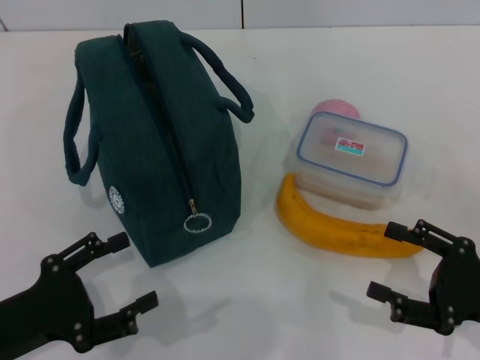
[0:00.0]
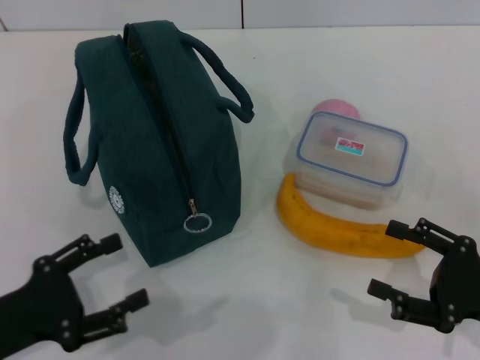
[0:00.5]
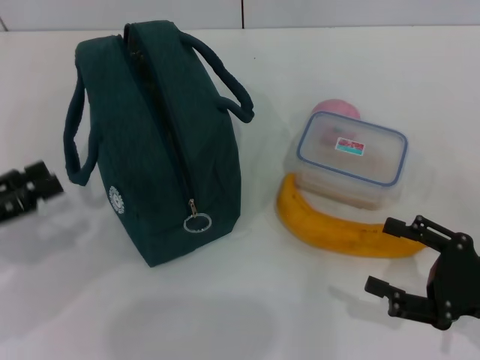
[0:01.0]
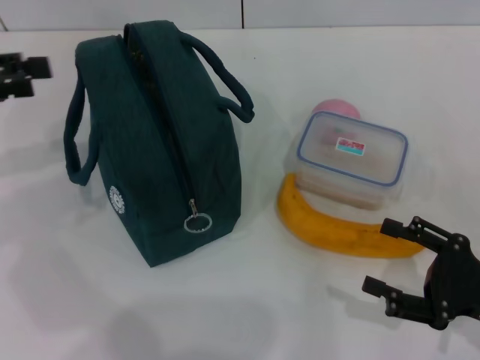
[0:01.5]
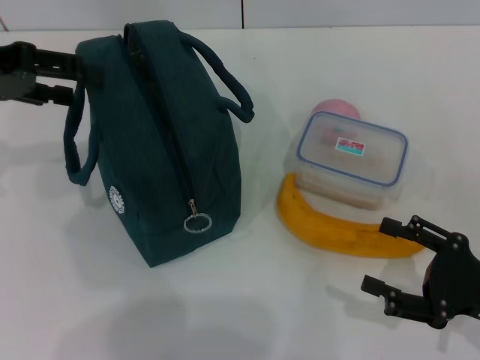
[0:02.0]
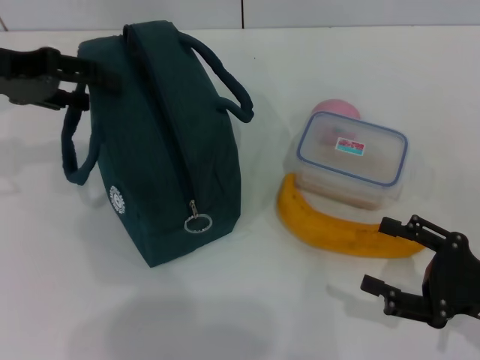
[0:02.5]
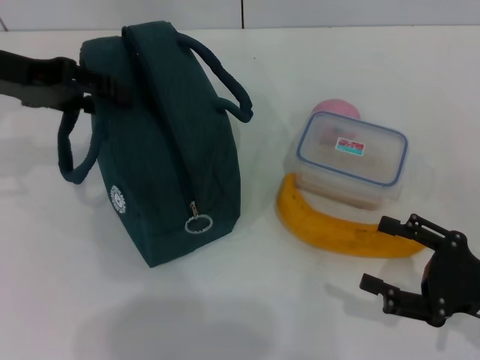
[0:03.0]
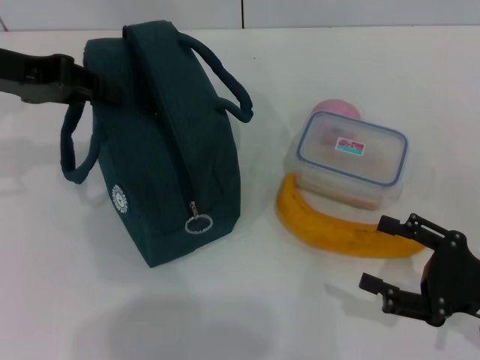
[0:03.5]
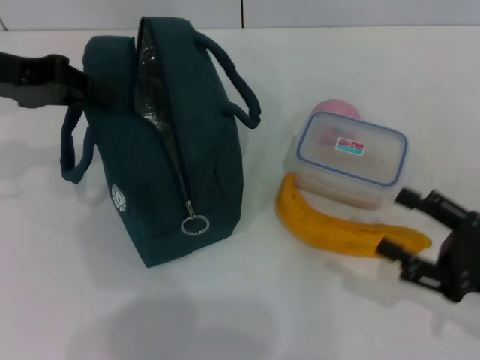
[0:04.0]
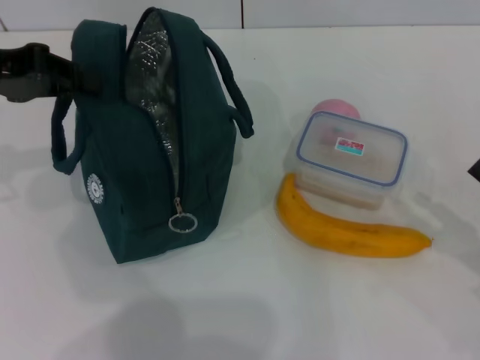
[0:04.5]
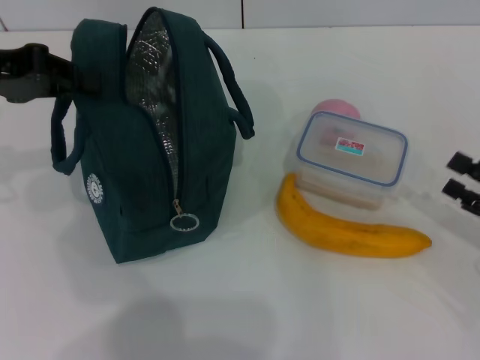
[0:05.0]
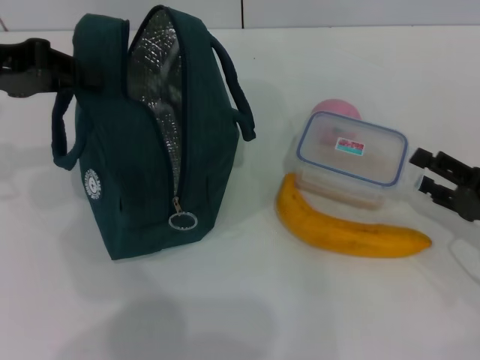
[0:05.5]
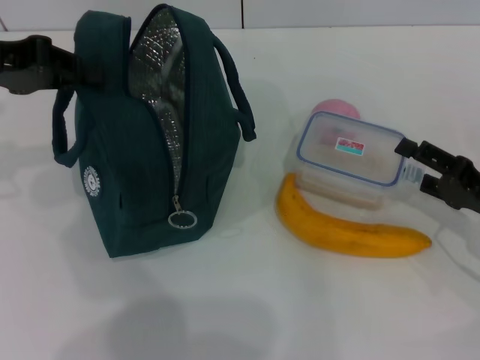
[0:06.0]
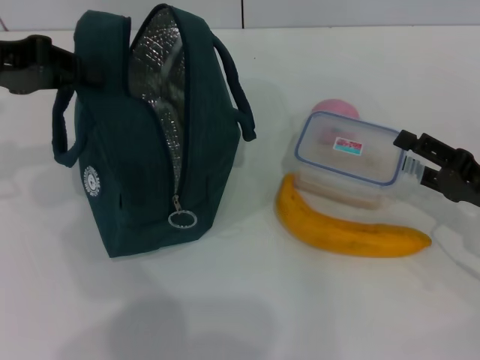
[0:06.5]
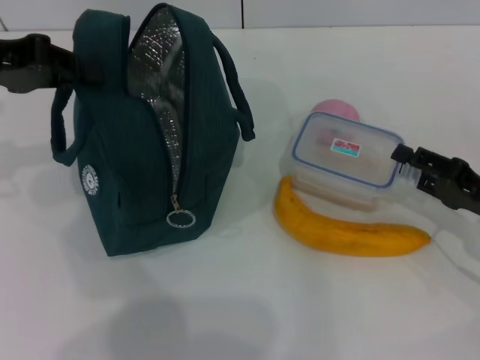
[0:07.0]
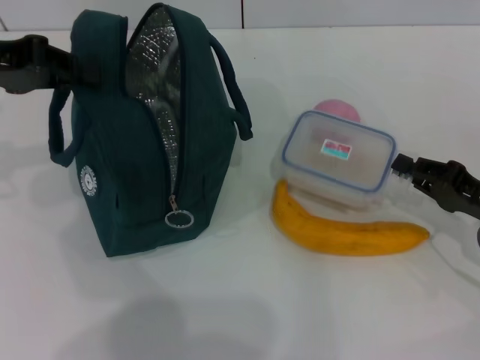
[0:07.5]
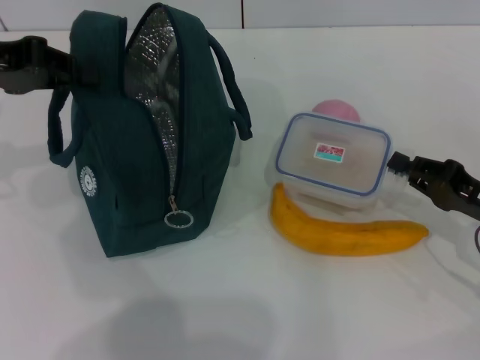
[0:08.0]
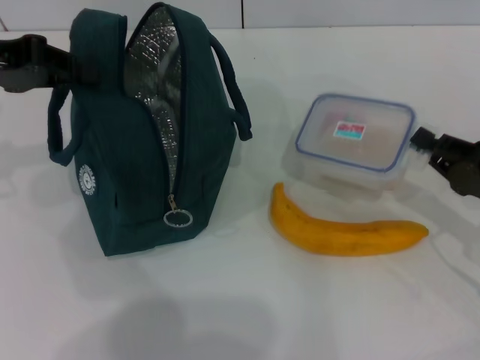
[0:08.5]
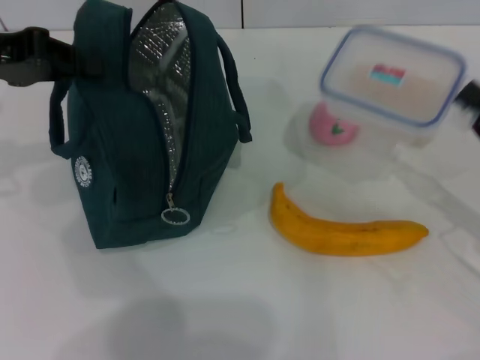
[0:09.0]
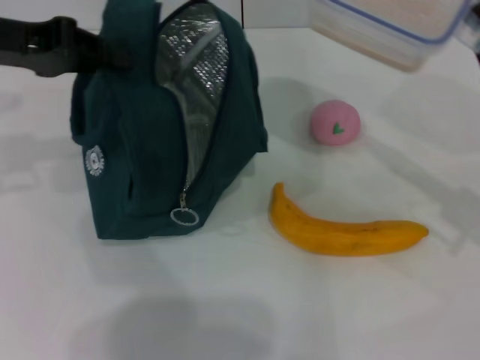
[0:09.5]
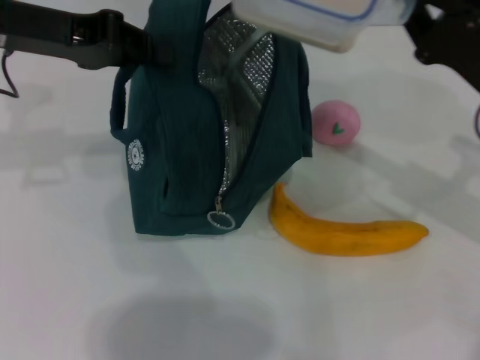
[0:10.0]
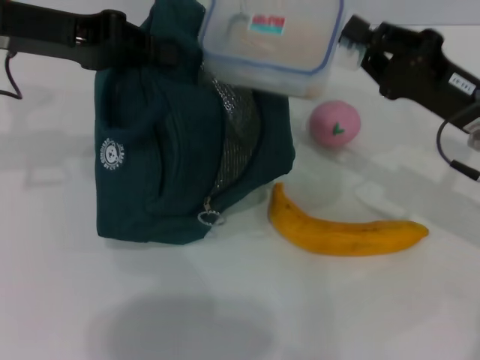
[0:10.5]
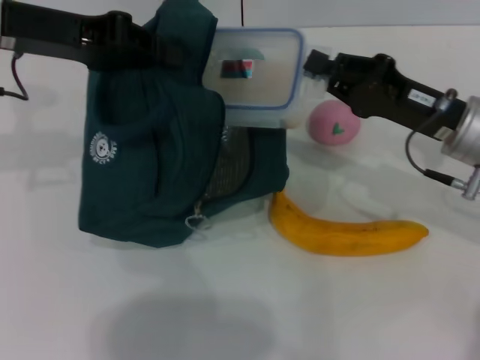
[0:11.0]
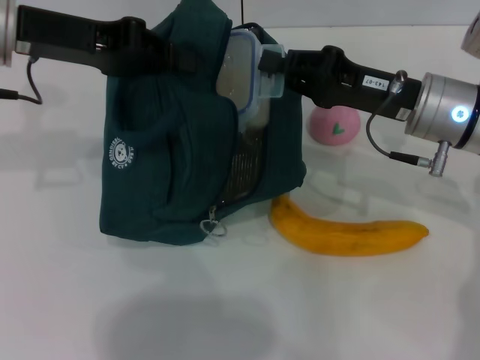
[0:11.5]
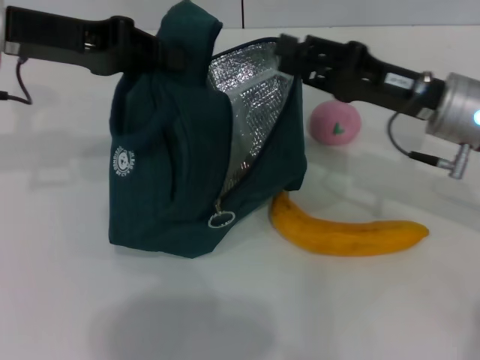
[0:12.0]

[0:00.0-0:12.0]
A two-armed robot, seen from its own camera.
Step, 0:00.0 to 0:04.0: Hold the lunch bag with your left hand.
Step, 0:04.5 to 0:07.5: Pick up the lunch box with your right hand.
Step, 0:08.0 to 0:11.5: Place the lunch box into the lunch bag with your right hand.
0:00.0 to 0:02.0: The left gripper heads forward and upward, covering some 25 cm.
0:02.0 to 0:04.0: The left gripper closes up.
0:04.0 to 0:06.0: The right gripper goes about 10 cm forward.
0:06.0 to 0:08.0: The right gripper closes up.
0:08.0 to 0:10.0: The right gripper moves upward and to the left, about 10 cm. The left gripper shifts about 5 cm to the right.
0:10.0 to 0:12.0: The right gripper moves approximately 5 cm.

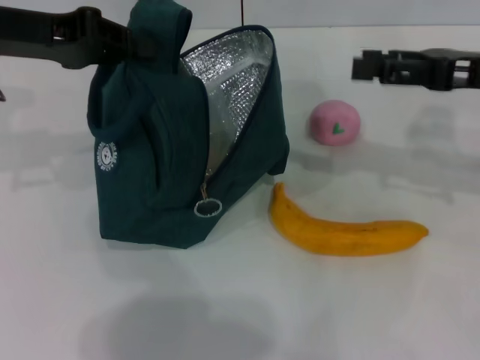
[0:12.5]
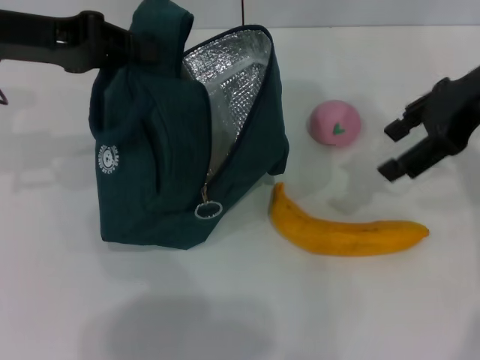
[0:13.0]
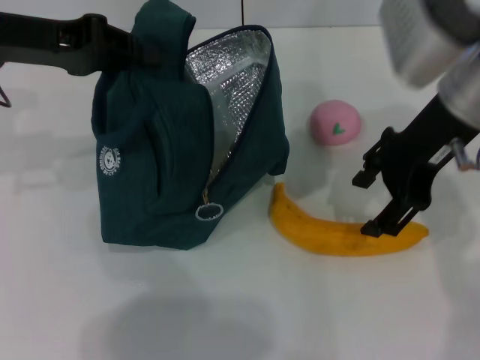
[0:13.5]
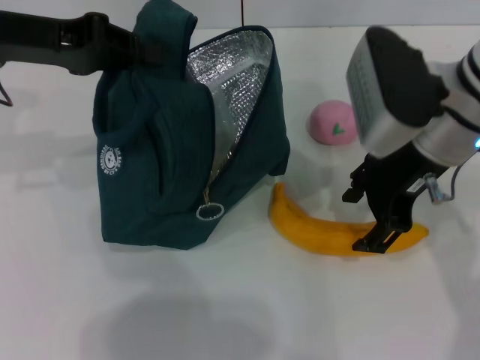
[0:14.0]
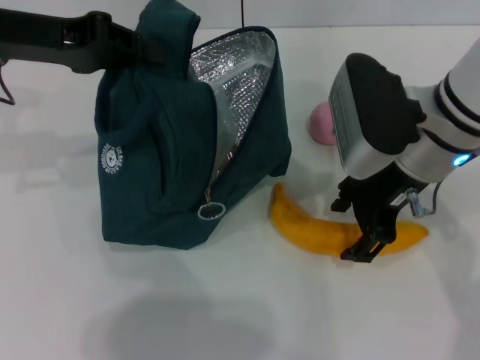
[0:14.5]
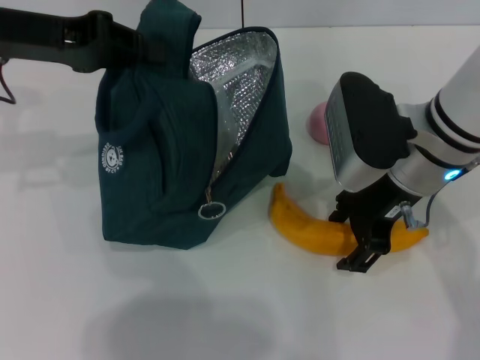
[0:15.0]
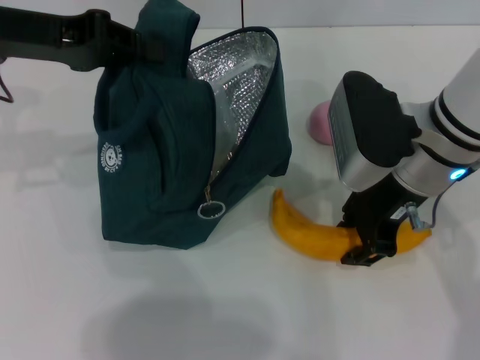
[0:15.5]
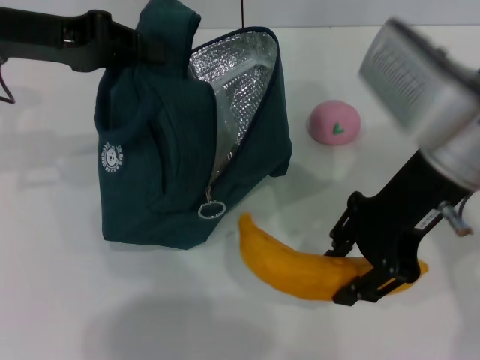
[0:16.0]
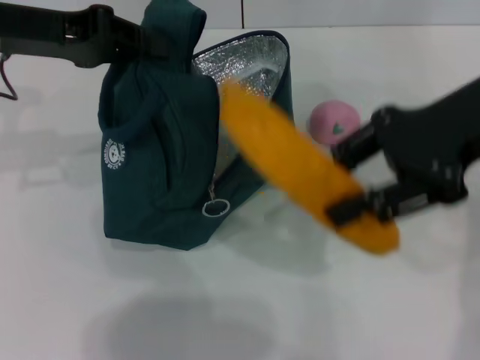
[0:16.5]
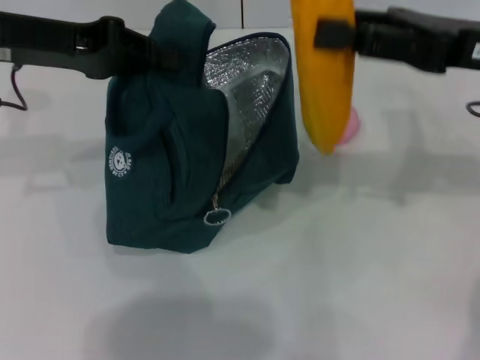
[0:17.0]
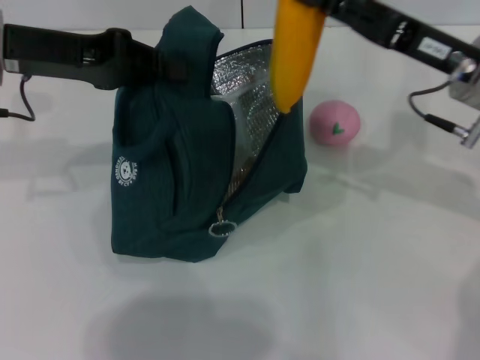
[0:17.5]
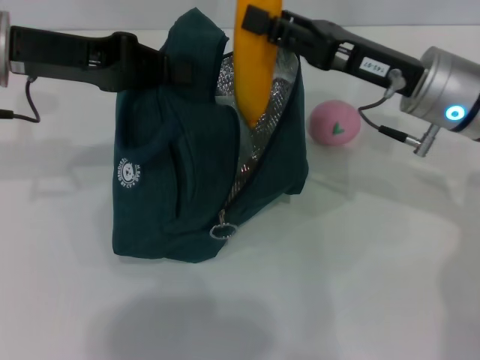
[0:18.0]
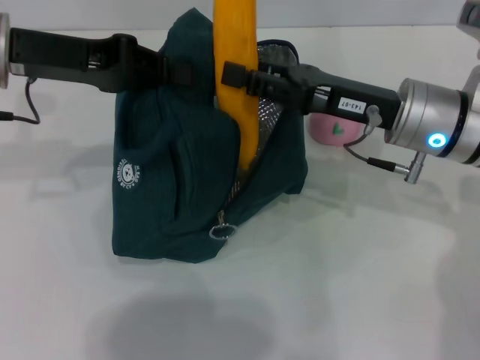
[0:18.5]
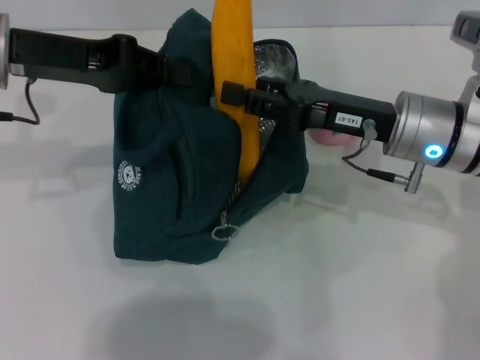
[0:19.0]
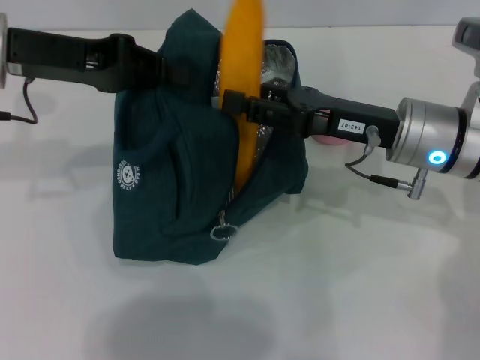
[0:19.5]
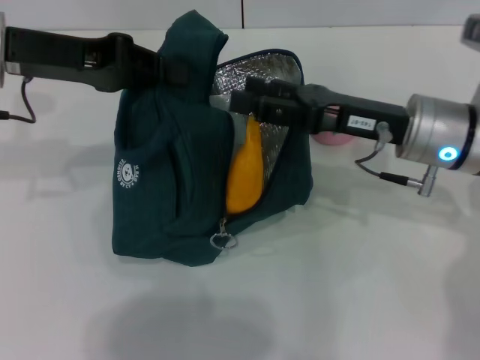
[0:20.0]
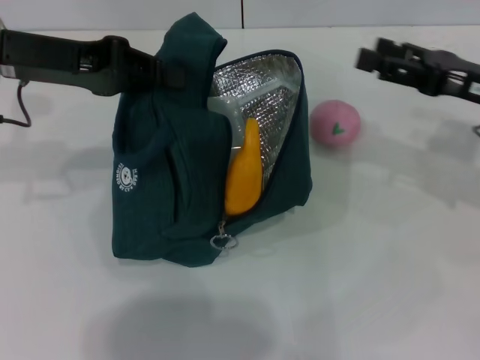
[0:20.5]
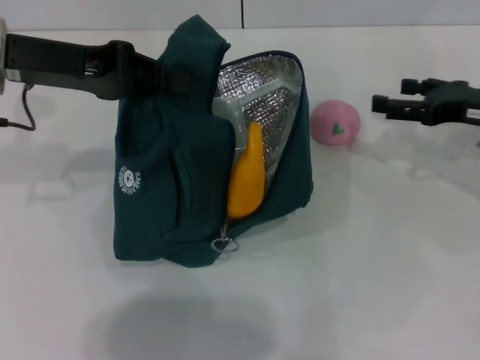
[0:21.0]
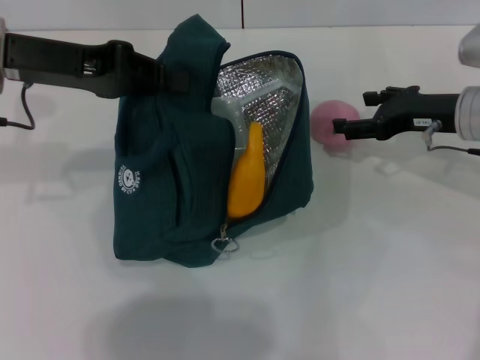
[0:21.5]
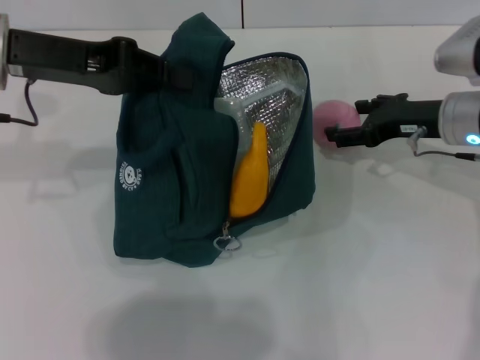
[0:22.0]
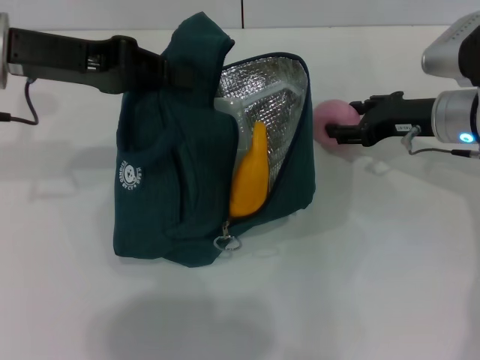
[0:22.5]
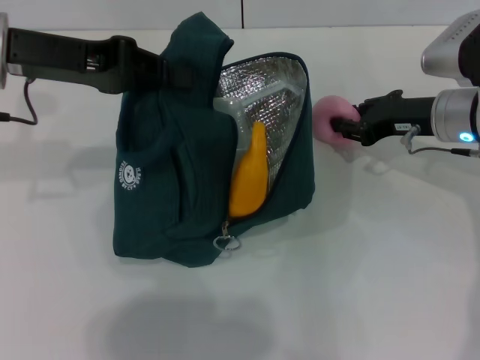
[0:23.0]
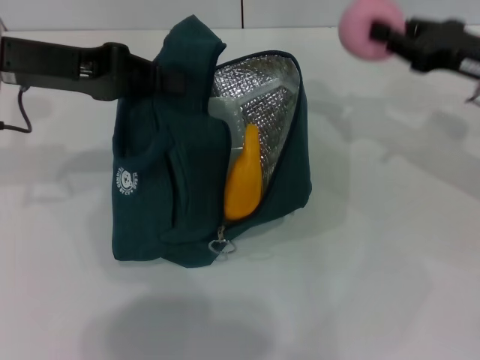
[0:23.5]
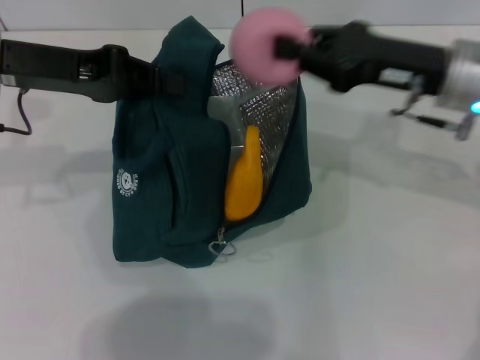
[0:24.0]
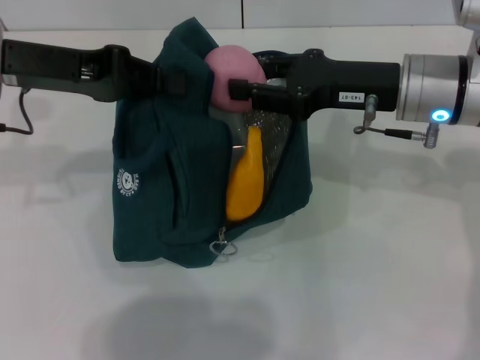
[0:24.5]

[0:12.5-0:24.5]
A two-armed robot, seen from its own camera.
Step, 0:12.5 to 0:15.5: Take the banana with your right hand.
Step, 0:16.0 to 0:19.5: Put the banana into the lunch bag with your right hand.
Step, 0:20.0 to 0:22.5: Grab the peach with your right hand.
0:12.5 to 0:14.5: The right gripper goes some 15 cm to the left.
0:14.5 to 0:16.5: The right gripper moves upward and to the right, about 10 cm.
0:16.5 to 0:18.5: The right gripper is displaced downward by some 10 cm.
0:18.5 to 0:20.5: The right gripper shifts about 10 cm to the right, and opens.
0:20.5 to 0:22.5: The right gripper shifts roughly 10 cm to the left and forward.
0:22.5 to 0:24.5: The right gripper is displaced upward and to the left by approximately 10 cm, and closes up.

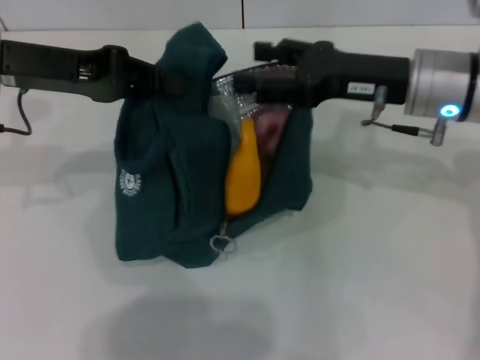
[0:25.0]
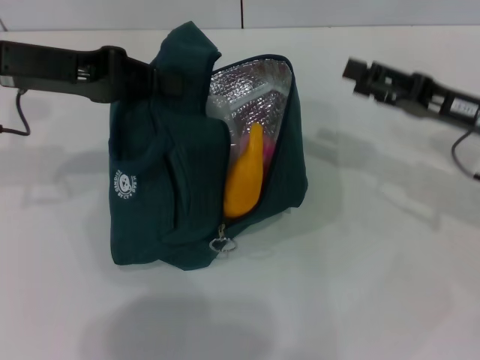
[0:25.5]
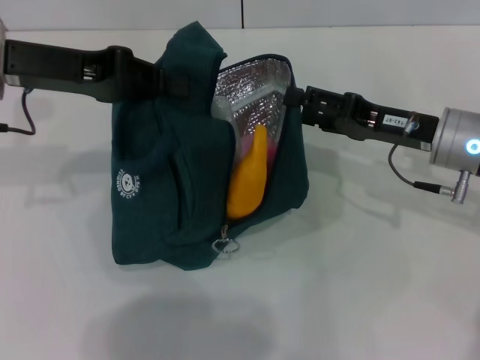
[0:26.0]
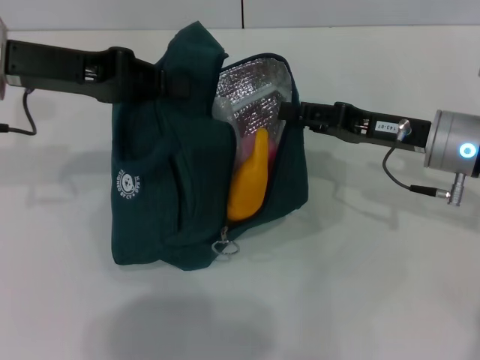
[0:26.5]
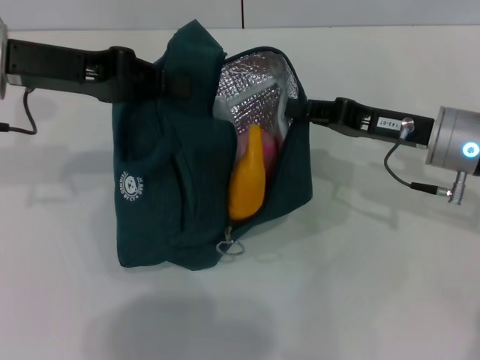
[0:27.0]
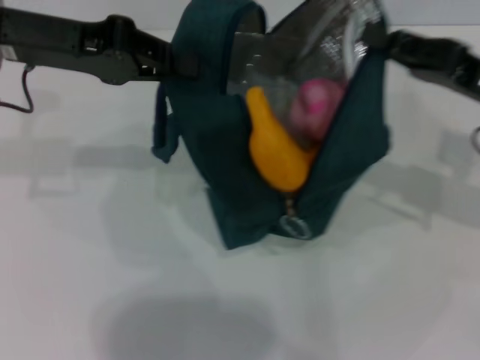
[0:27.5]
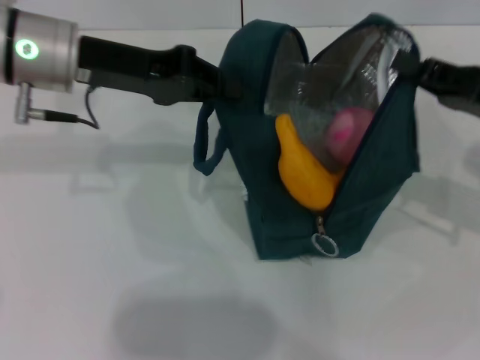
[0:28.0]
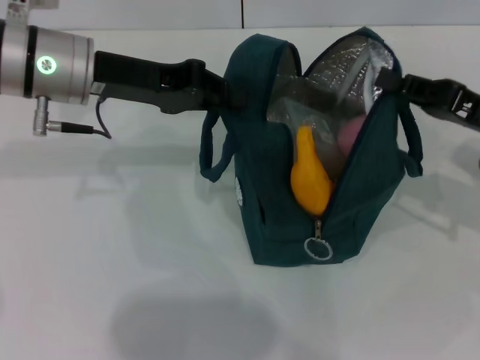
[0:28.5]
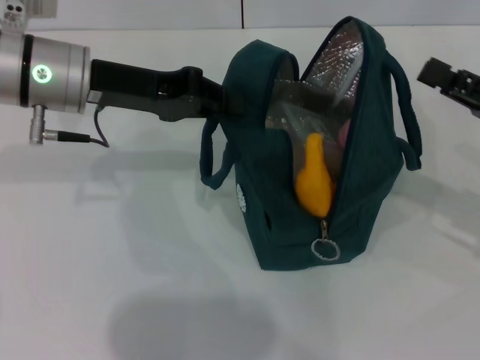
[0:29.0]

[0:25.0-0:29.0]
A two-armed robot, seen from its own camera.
Step, 0:25.0 to 0:28.5: Hold the lunch bag with your right hand.
0:25.0 to 0:27.0: The right gripper is displaced downward by about 5 cm, and closes up.
0:27.0 to 0:29.0: The right gripper moves to the right and backward, some 10 cm; the left gripper changes place by about 5 cm.
